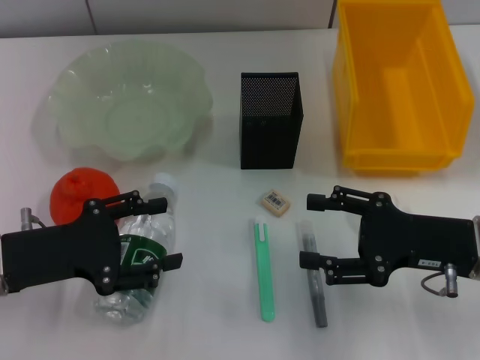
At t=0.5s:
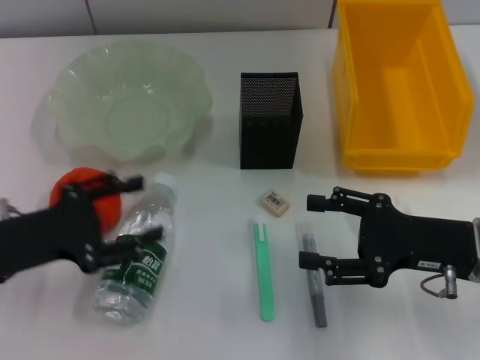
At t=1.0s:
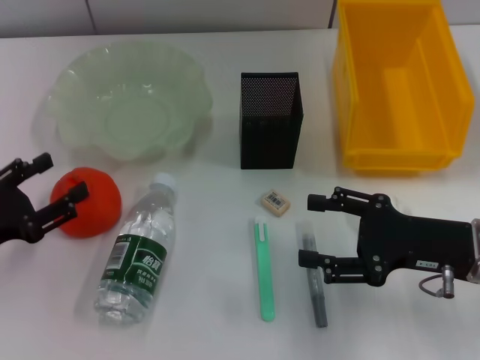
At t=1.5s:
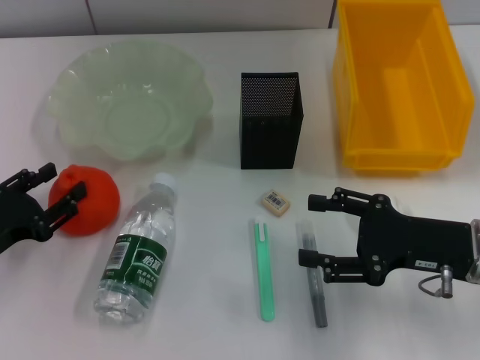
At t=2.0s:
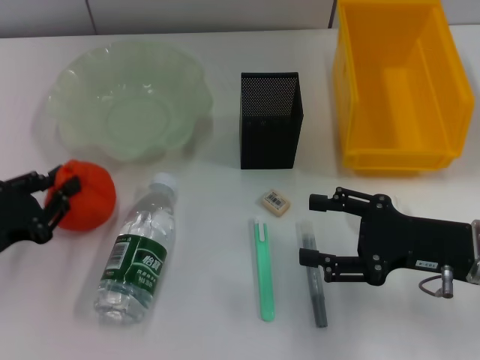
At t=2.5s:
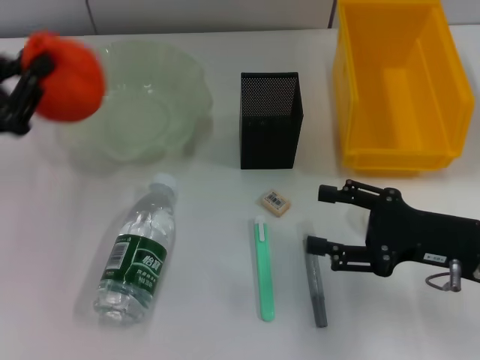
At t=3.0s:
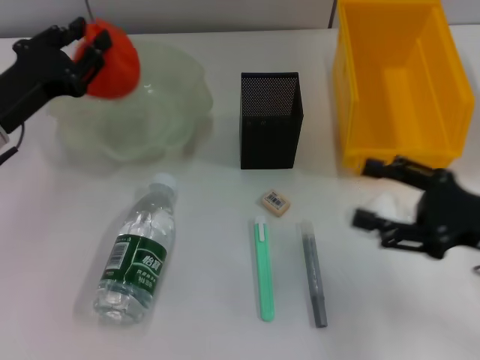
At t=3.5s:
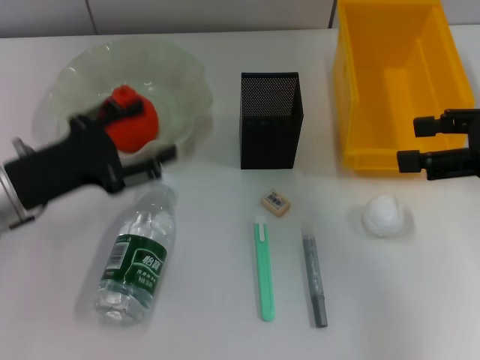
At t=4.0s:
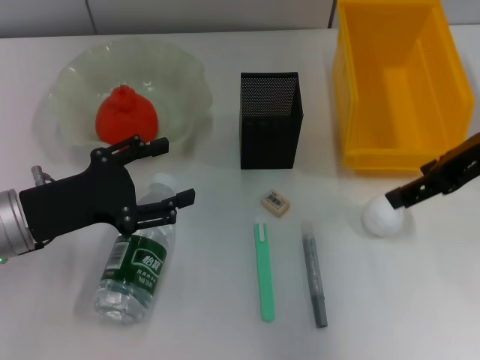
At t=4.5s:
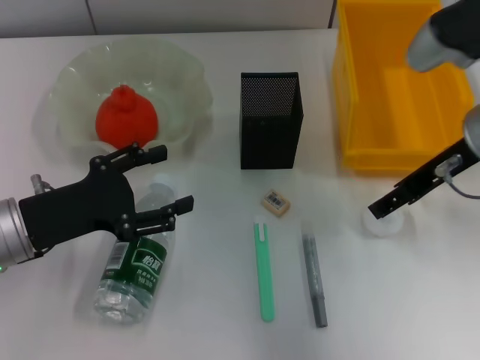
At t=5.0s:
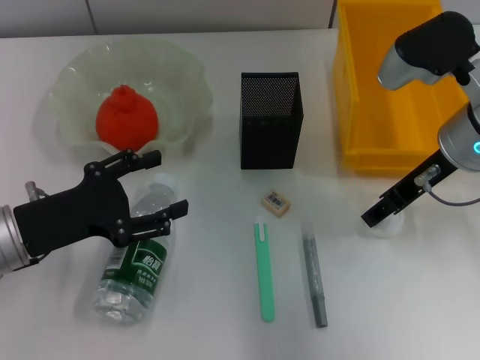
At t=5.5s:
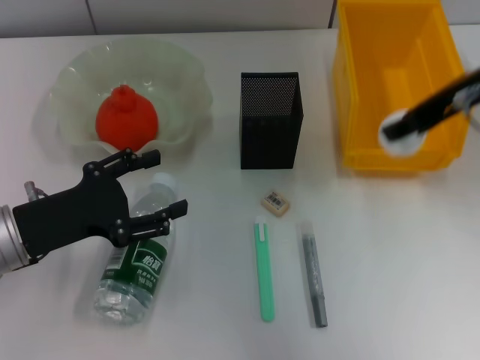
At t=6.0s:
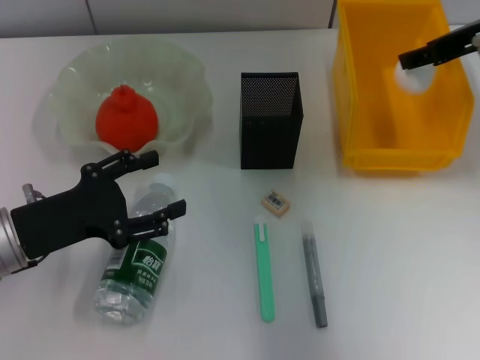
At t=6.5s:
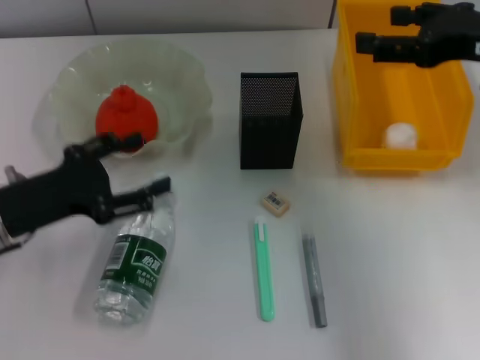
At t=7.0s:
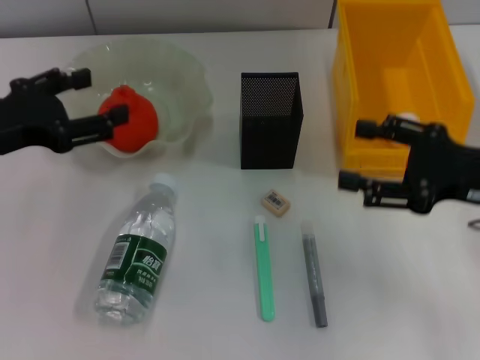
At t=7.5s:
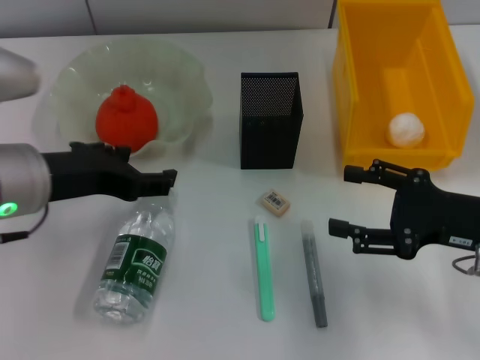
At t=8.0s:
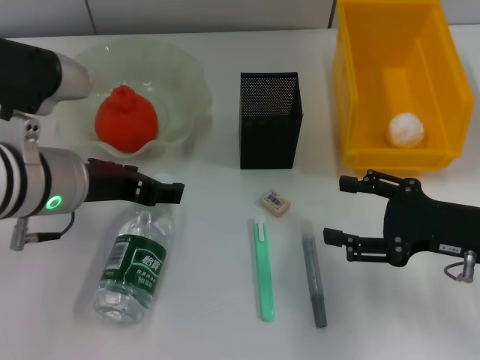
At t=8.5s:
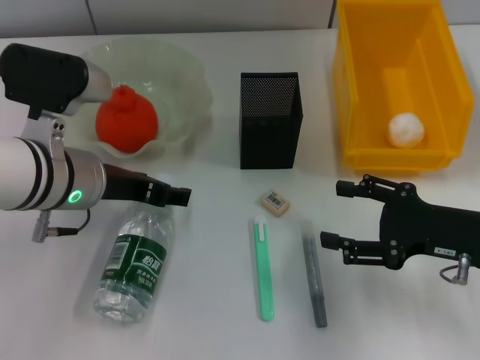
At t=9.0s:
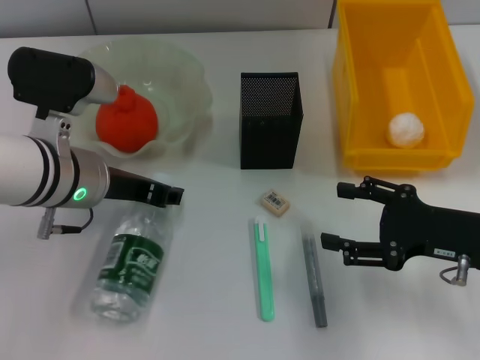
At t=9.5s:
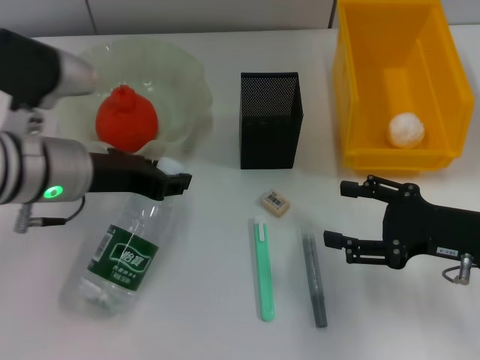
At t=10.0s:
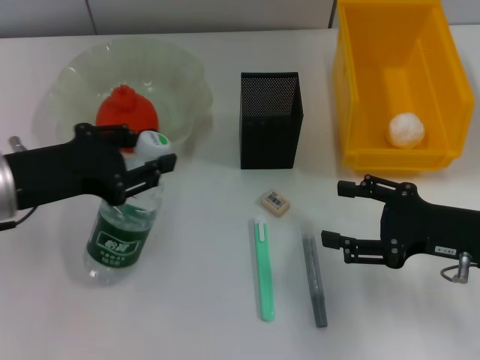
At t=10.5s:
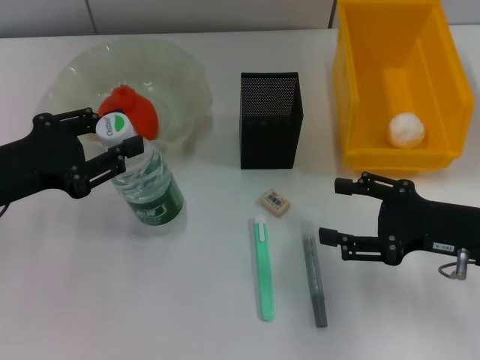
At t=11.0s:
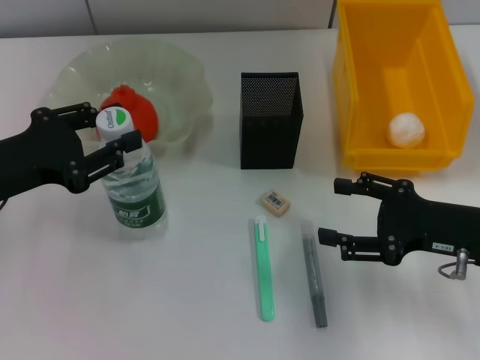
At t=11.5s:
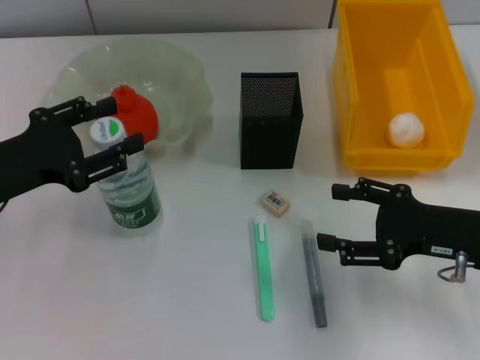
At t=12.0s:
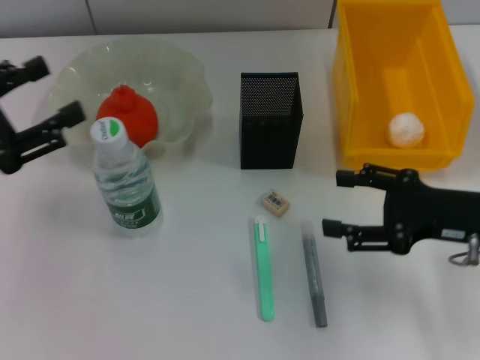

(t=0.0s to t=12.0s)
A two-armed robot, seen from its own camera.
Step, t=0.0s - t=1.5s: Grab the orange with the left hand.
Step, t=2.0s - t=3.0s: Place the orange into the fruit bowl with the left hand.
Step, t=3.5s - t=4.5s: Grab the paper ball with the right hand.
Step, t=5.0s - t=6.0s: Place the paper ball into the trash can with the right hand.
Step, t=6.5s - t=9.0s: Grab the water bottle with the left hand.
Step, t=9.5s - t=11.5s: Place the water bottle on the table with the left hand.
t=0.0s - t=2.0s: The left gripper goes roughly 5 cm to the left, and closes its fingers.
t=2.0s - t=4.0s: The left gripper heads to the right, covering about 5 cm, and opens its fingers; the right gripper is displaced upward by roughly 15 cm.
t=4.0s - t=6.0s: The right gripper goes approximately 10 cm forward, reaches approximately 5 cm downward, then returns, and closes its fingers.
t=6.0s - t=8.0s: The right gripper travels downward and backward by approximately 20 cm, and opens up; the left gripper travels to the right and upward by approximately 10 cm.
t=8.0s - t=10.0s: The left gripper shifts about 5 cm to the left, and closes up.
t=10.0s - t=12.0s: The left gripper shifts about 10 cm to the left, and opens.

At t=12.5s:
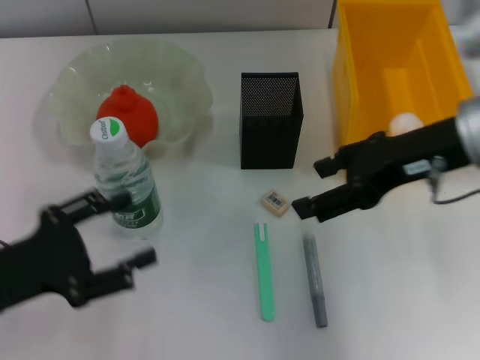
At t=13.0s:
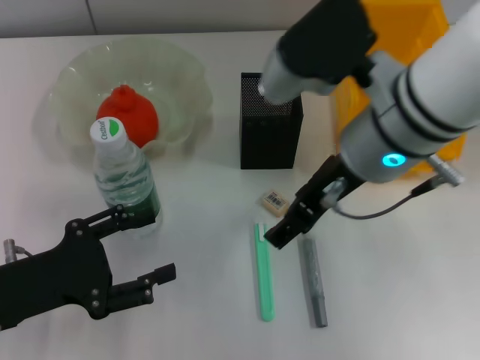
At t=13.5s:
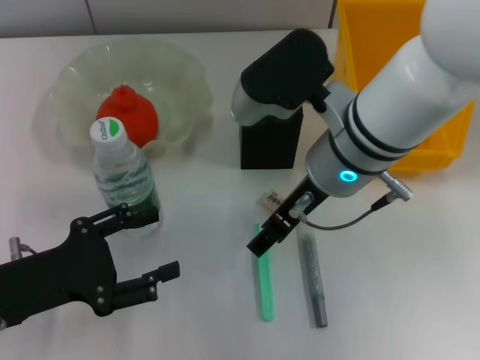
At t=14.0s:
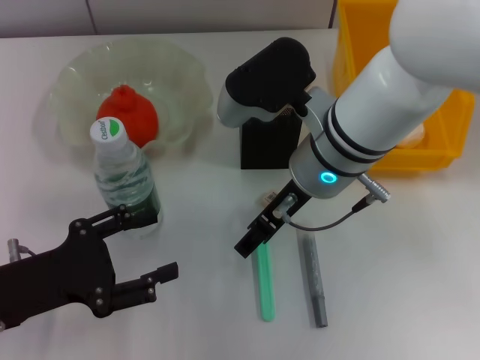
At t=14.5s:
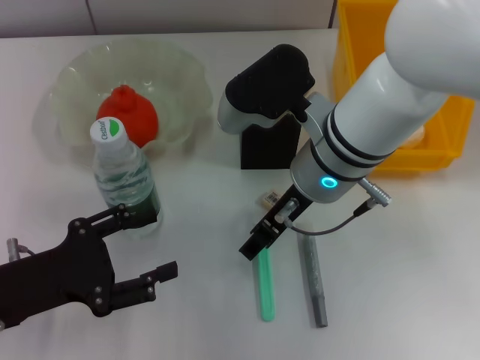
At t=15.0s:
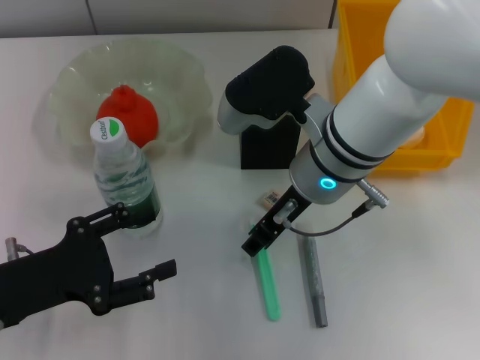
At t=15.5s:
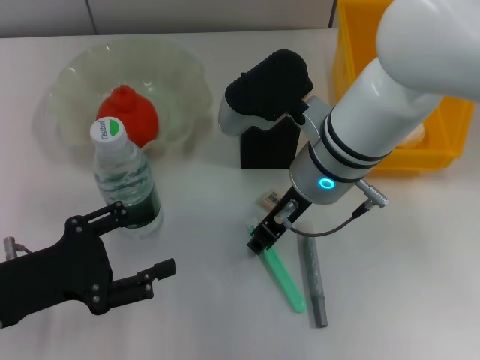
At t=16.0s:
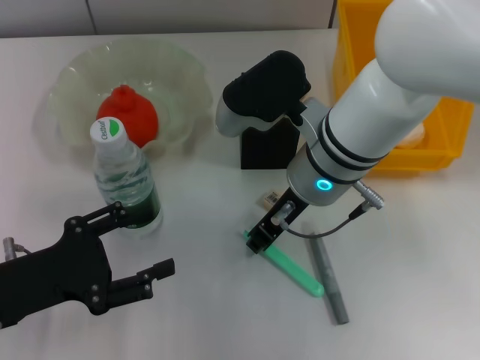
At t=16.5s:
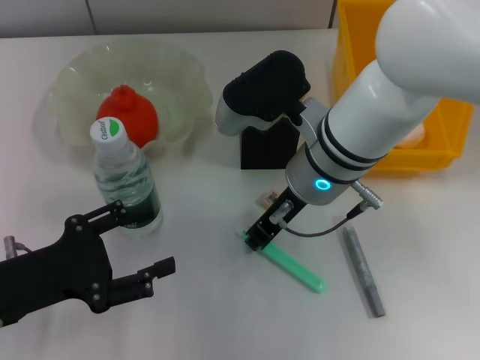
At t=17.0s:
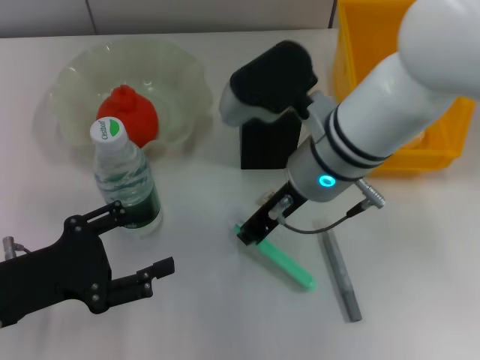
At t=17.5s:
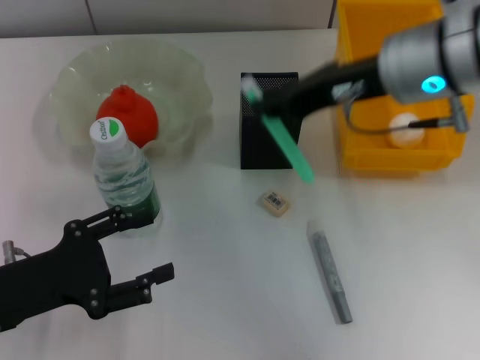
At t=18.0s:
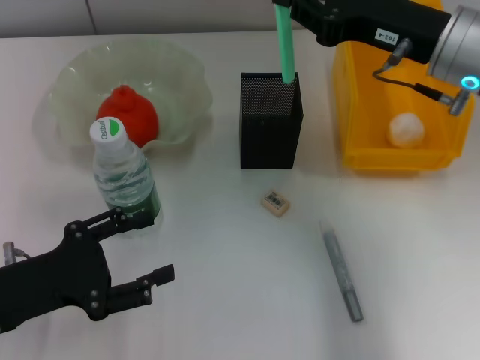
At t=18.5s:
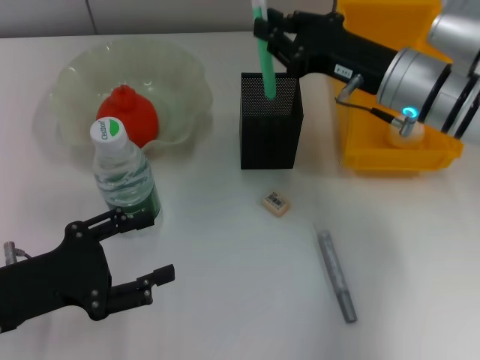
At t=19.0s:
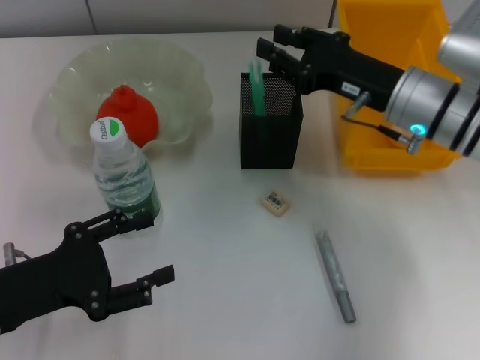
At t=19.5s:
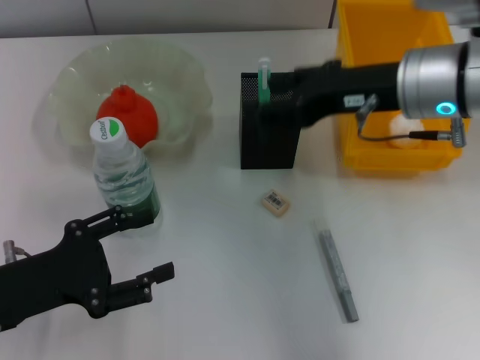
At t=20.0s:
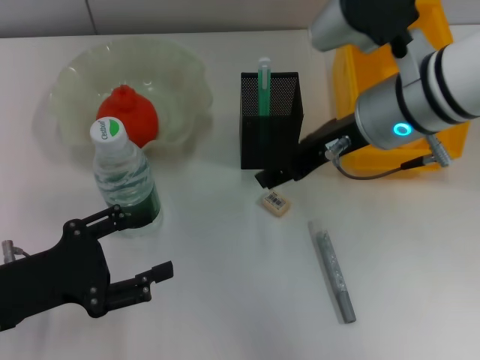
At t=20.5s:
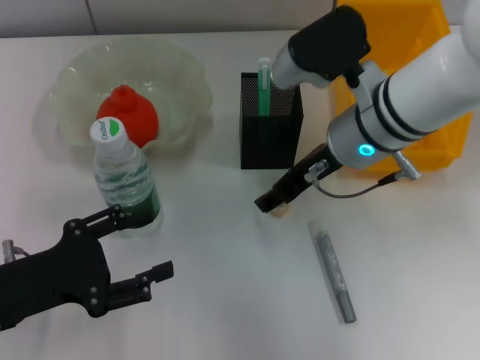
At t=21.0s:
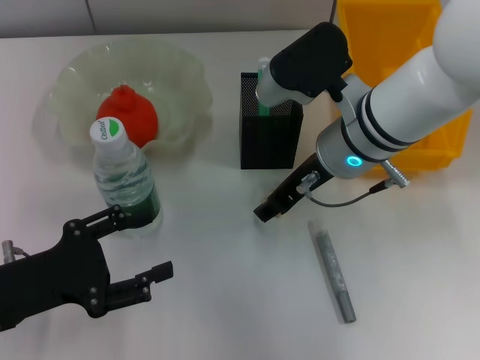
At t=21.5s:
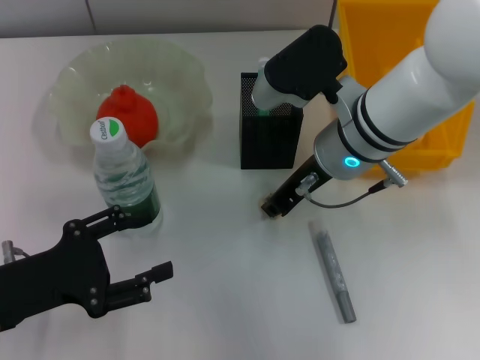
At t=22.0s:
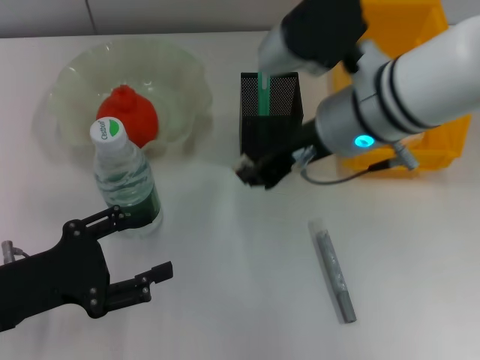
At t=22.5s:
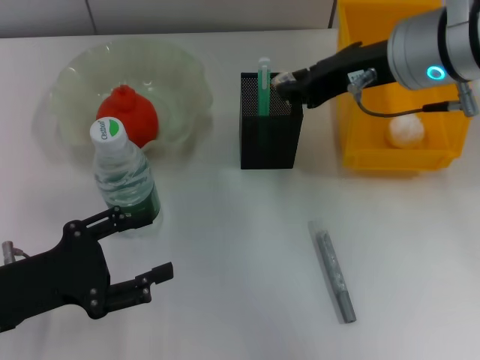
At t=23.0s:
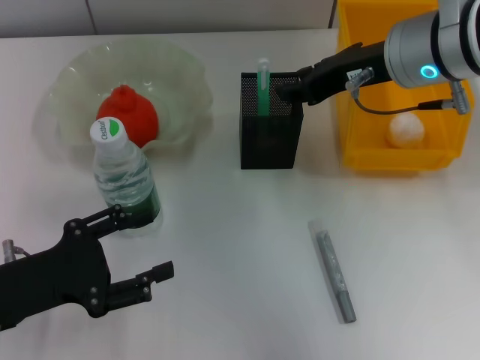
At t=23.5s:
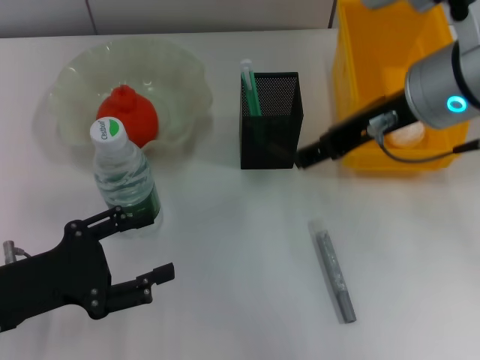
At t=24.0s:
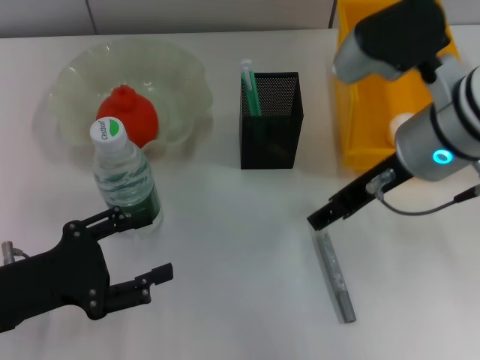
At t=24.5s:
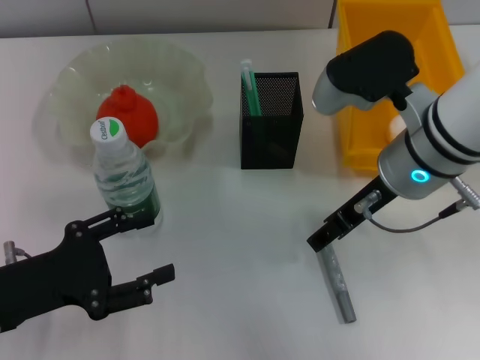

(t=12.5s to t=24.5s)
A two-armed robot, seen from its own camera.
Step, t=12.5s - t=16.5s: Grab the blue utility knife with the right hand.
Step, t=17.0s - t=19.0s: Place the blue utility knife into the pen holder with the right hand.
Step, t=19.5s - t=21.0s: Grab the eraser with the right hand.
Step, t=21.5s - t=23.0s: Put the eraser into the pen holder with the right hand.
t=12.5s - t=14.5s: The right gripper heads to the left and downward, covering roughly 15 cm.
t=14.5s - t=16.5s: The right gripper closes its fingers.
t=16.5s - t=18.5s: The right gripper shifts roughly 10 cm to the right.
t=18.5s - t=20.5s: The right gripper goes approximately 5 cm to the left, travels upward and back again, approximately 5 cm each way, and opens up.
t=20.5s - t=22.5s: The right gripper goes approximately 10 cm upward, and closes its fingers.
t=22.5s - t=24.5s: The right gripper travels downward by some 5 cm, and opens.

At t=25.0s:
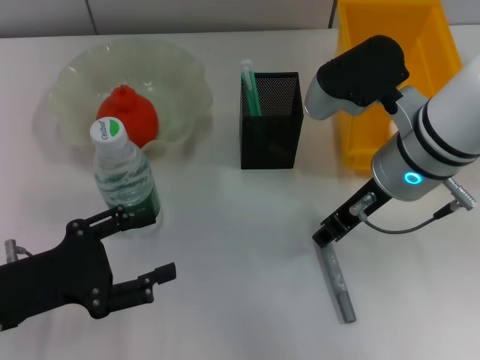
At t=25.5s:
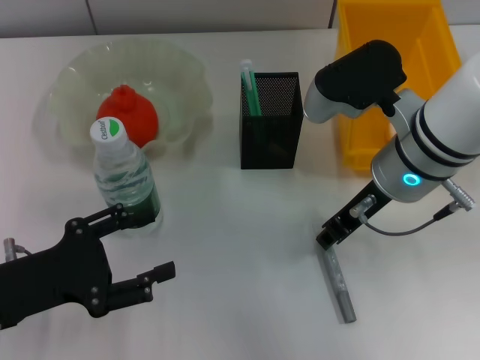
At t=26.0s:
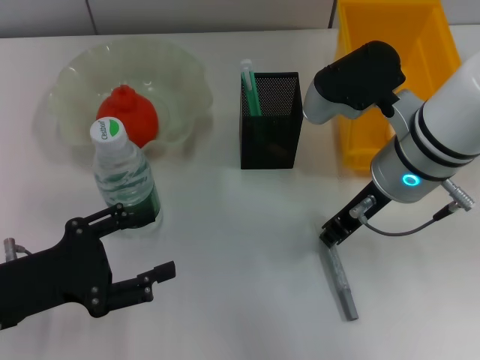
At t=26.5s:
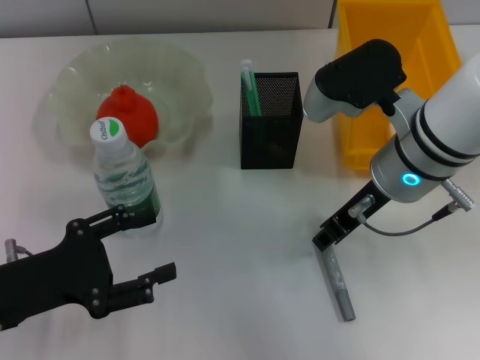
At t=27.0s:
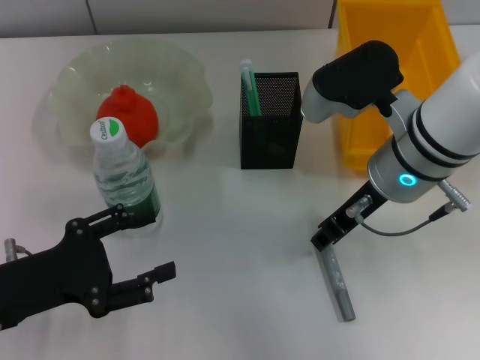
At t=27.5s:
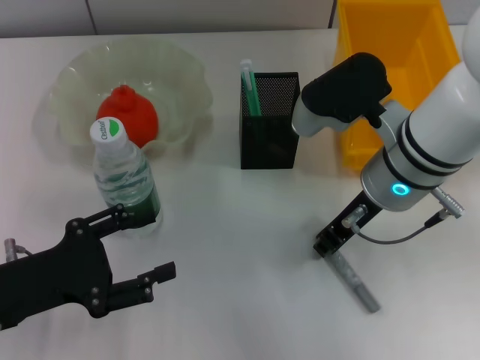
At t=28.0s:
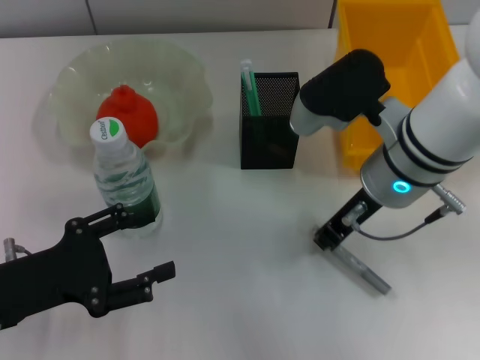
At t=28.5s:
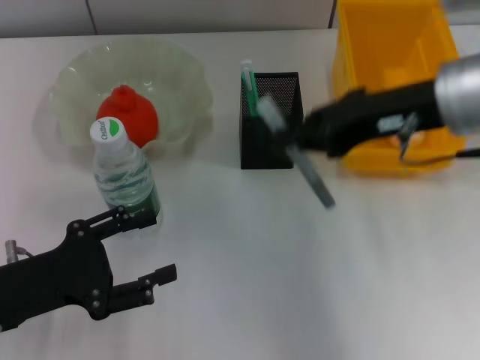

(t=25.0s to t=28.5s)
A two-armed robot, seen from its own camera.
Step, t=25.0s - t=27.5s: Grab the gray glue with the right hand.
t=25.0s - t=27.0s: Both grippers stay about where they are.
t=27.0s - t=28.5s: The right gripper moves upward and to the right, about 10 cm, and closes its fingers.
